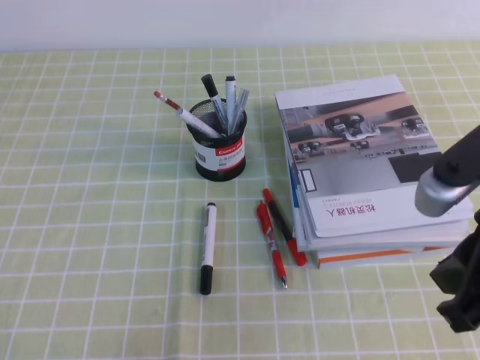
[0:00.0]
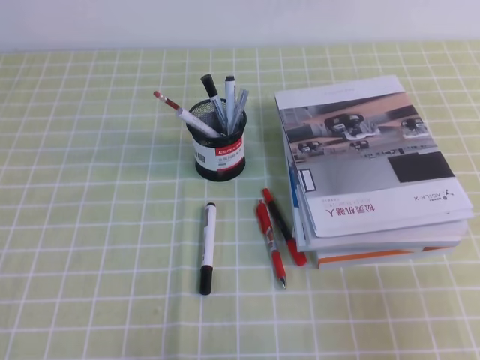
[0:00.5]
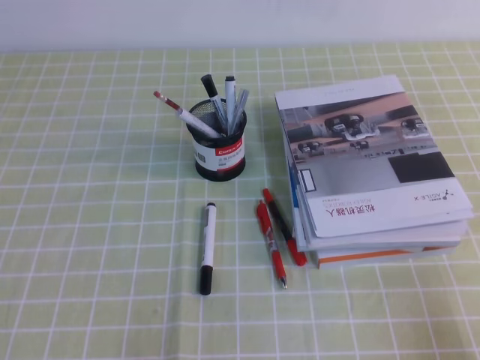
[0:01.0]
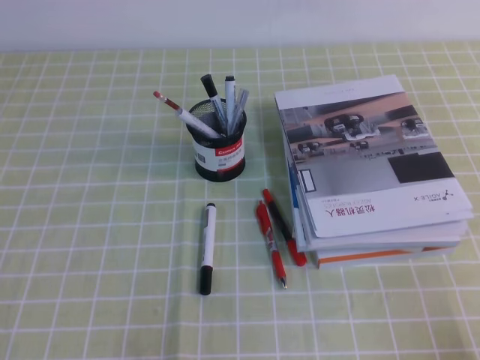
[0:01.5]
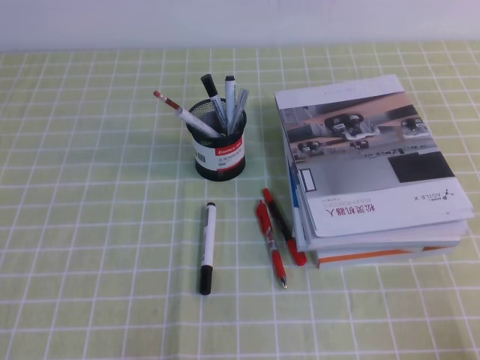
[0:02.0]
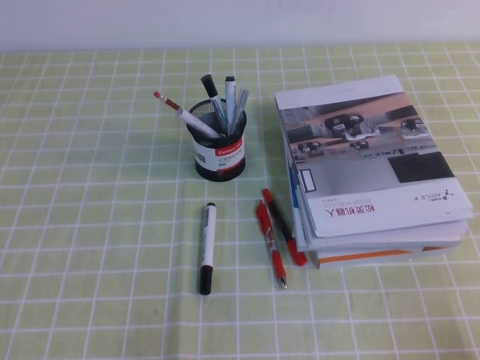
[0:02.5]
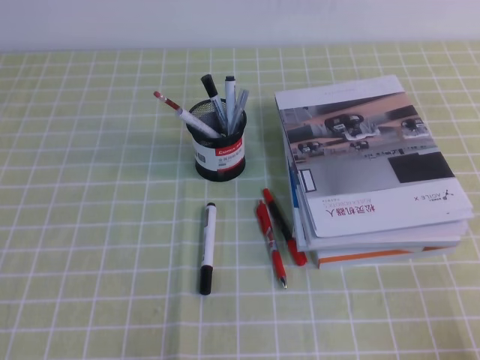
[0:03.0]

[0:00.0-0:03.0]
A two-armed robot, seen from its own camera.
Step, 0:00.0 to 0:03.0: Pick up the pen from the pen holder.
0:00.0 to 0:01.5: The right gripper moves downward, to the right and backward, about 25 cm.
0:01.5 to 0:03.0: Both grippers stay about where they are.
